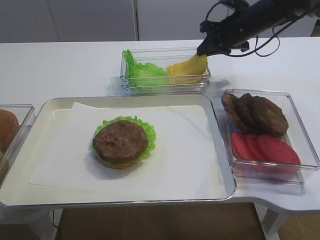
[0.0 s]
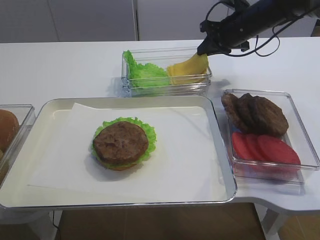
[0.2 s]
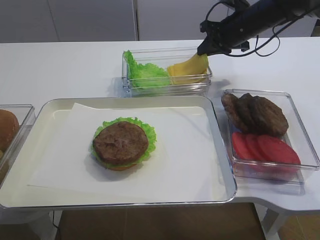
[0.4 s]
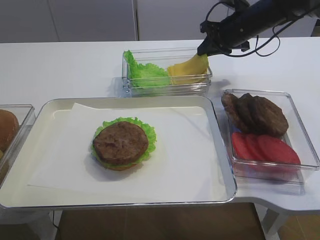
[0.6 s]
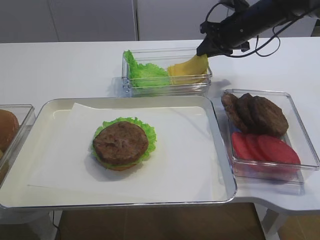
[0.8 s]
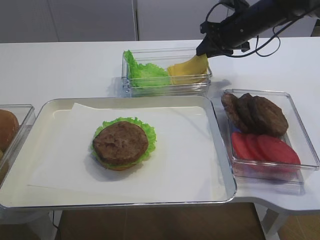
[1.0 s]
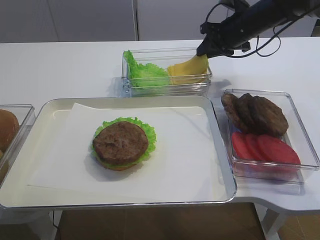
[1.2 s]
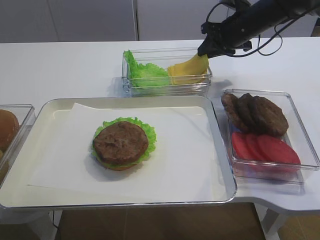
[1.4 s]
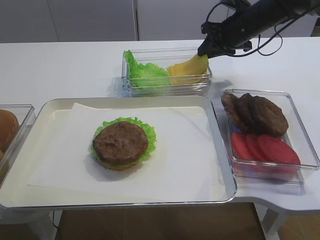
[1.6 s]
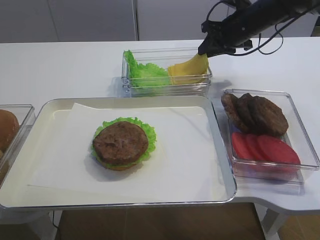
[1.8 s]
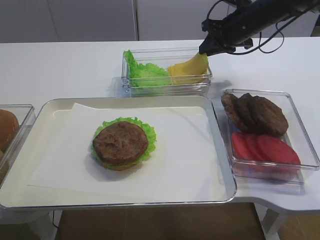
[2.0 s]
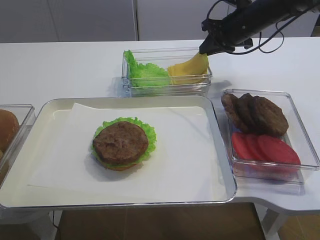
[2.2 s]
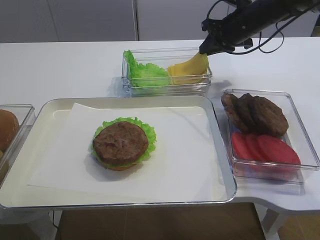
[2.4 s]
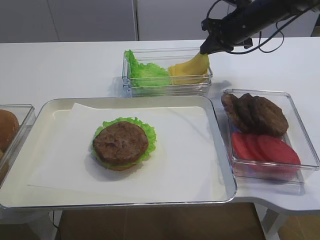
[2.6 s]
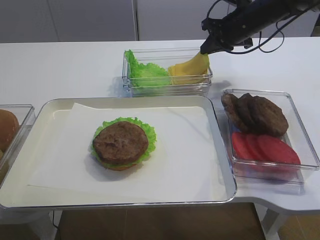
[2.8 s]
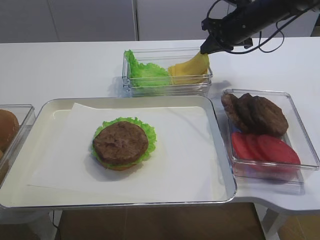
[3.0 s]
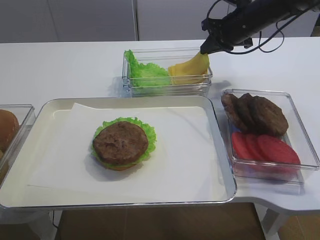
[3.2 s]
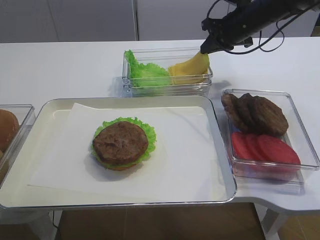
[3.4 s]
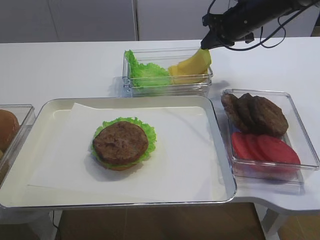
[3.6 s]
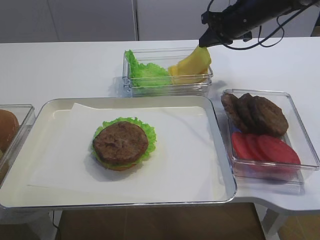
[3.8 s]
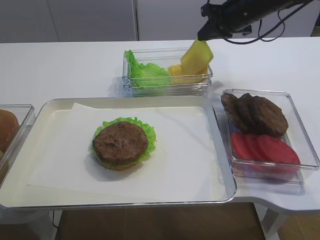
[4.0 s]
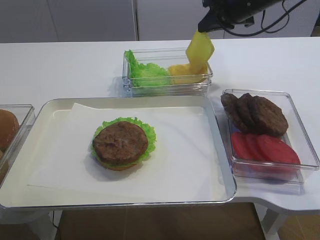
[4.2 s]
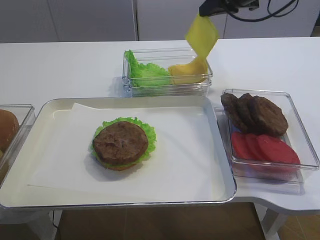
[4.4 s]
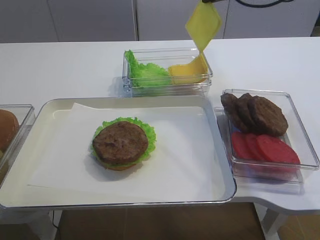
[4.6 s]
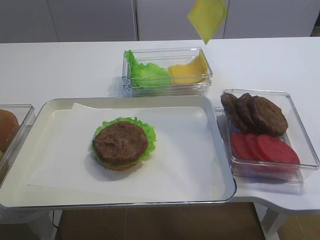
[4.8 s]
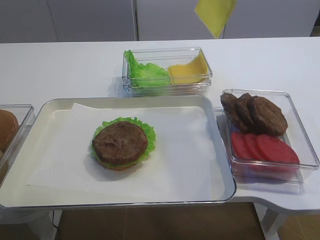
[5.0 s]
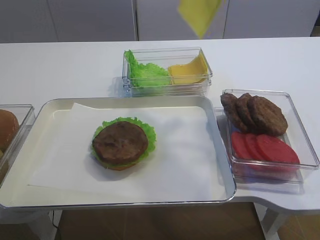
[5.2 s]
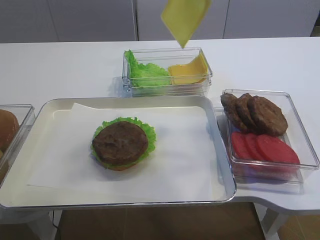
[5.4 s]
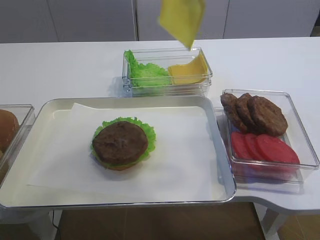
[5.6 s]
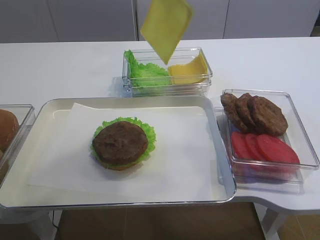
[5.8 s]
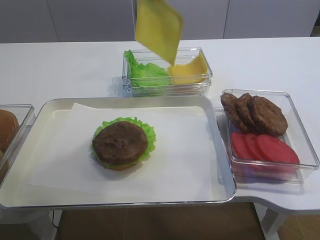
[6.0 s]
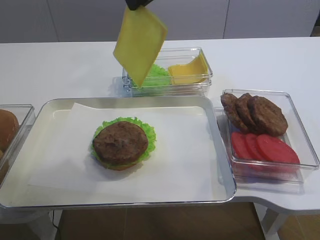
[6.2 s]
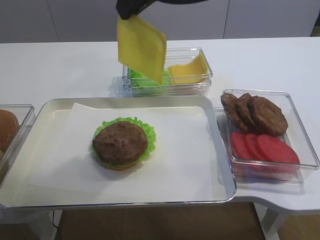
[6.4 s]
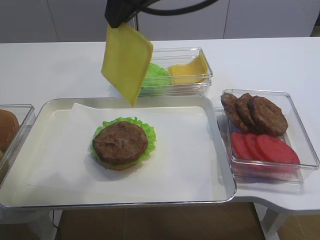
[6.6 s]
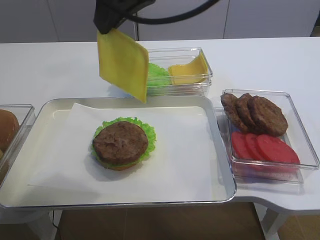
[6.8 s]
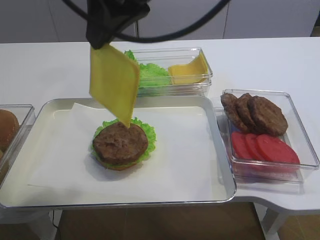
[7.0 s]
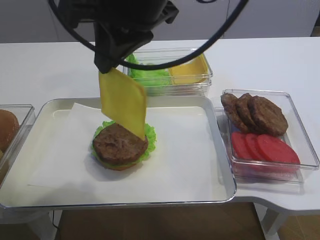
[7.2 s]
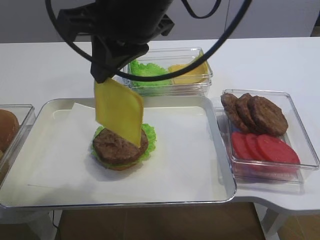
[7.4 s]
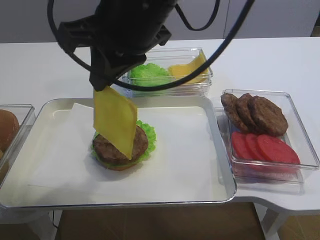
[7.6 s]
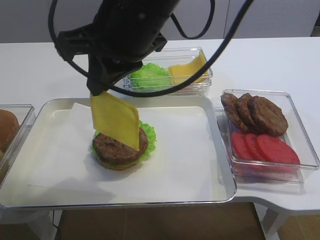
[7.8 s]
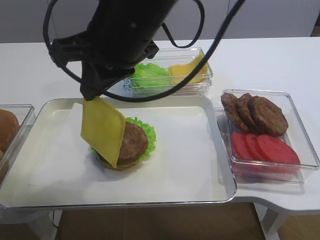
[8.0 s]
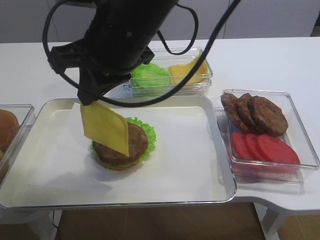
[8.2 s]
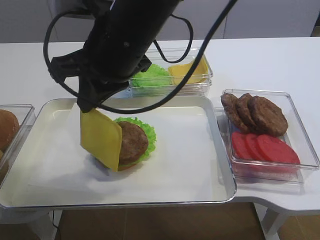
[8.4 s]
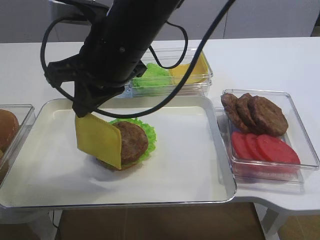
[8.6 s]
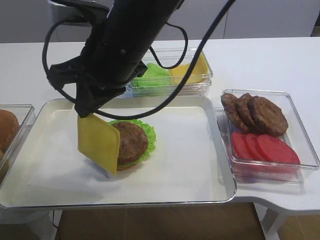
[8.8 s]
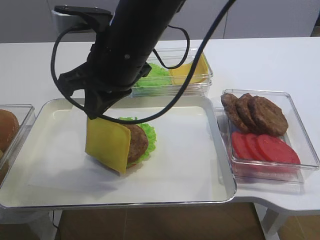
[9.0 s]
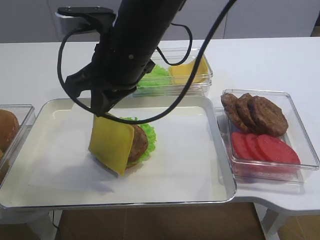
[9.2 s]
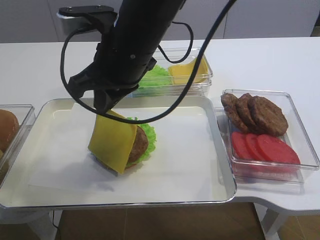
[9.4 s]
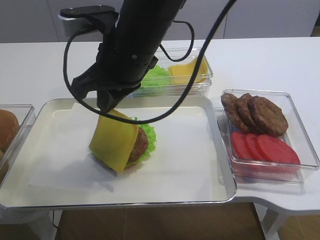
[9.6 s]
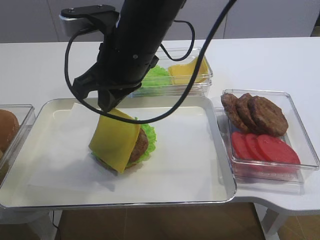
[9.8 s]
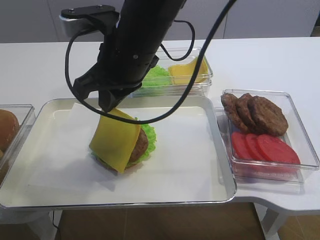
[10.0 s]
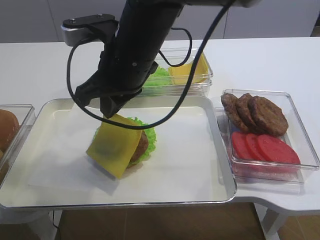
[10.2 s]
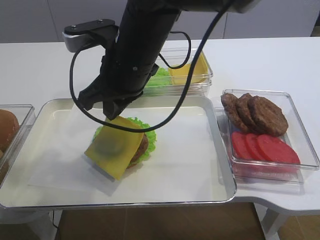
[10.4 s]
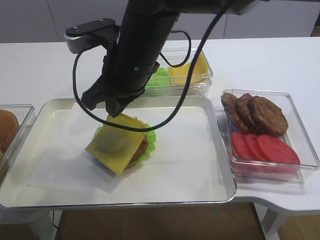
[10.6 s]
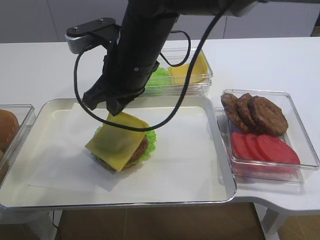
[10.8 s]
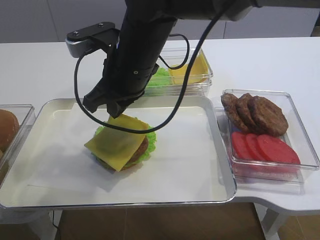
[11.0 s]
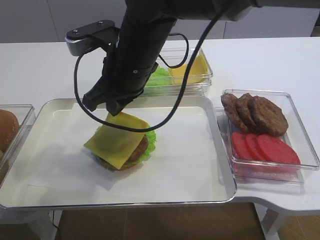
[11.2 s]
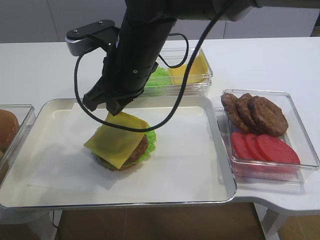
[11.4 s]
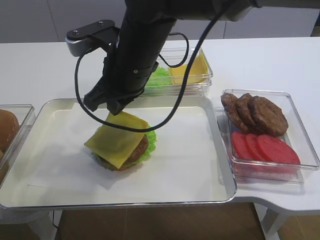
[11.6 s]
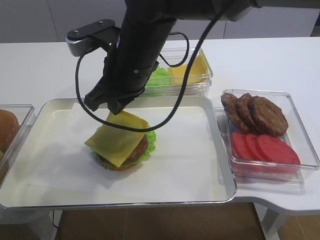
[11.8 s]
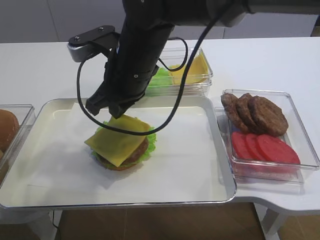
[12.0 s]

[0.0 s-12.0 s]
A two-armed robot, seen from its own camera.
Step, 0.0 to 4.4 s: Pick up the cheese slice with the right gripper.
0.0 to 1.6 s: Neither gripper changes place.
1.6 to 3.0 s: The right gripper closes its fingers.
3.0 to 4.4 s: The right gripper is displaced upward by approximately 10 cm.
4.4 to 6.0 s: The right gripper moves backward, upward and to the left, approximately 20 cm.
6.0 to 7.6 s: The right gripper travels to the left, backward and downward by some 10 cm.
7.6 to 9.0 s: The right gripper is displaced downward by about 5 cm.
9.0 to 12.0 s: The grippers stay close to where they were, moving slightly.

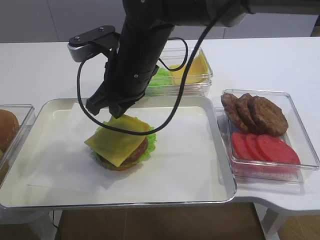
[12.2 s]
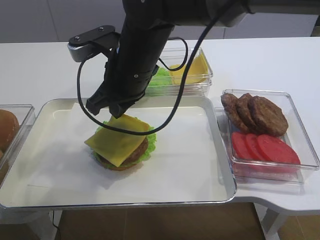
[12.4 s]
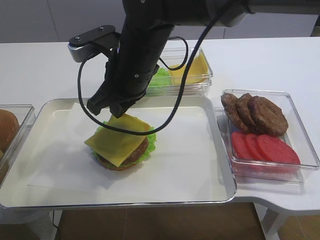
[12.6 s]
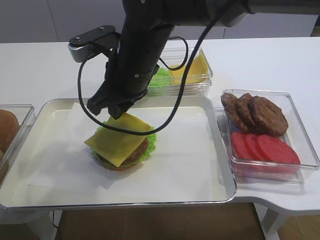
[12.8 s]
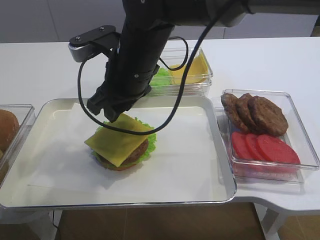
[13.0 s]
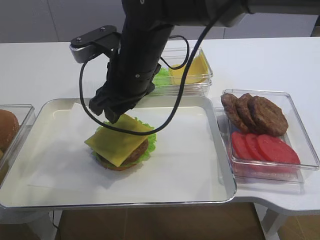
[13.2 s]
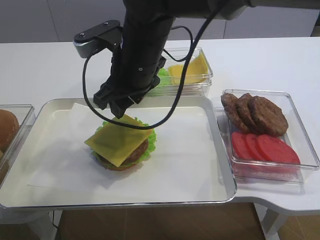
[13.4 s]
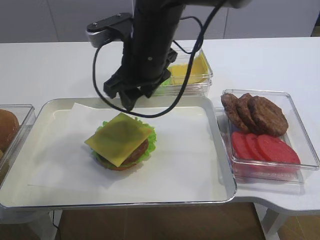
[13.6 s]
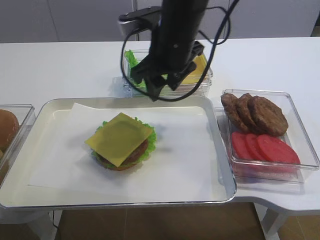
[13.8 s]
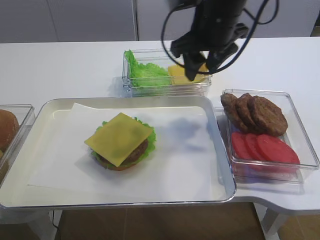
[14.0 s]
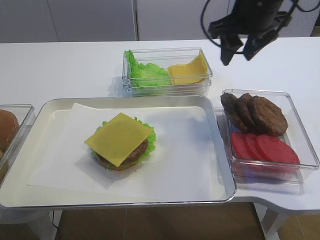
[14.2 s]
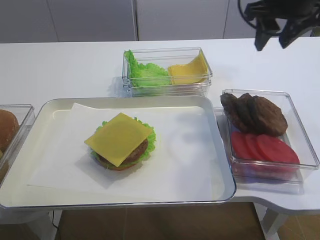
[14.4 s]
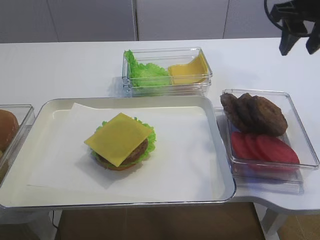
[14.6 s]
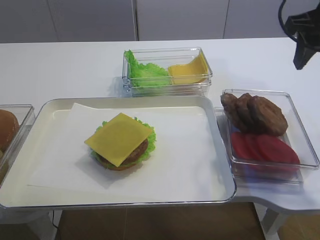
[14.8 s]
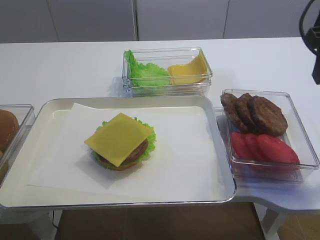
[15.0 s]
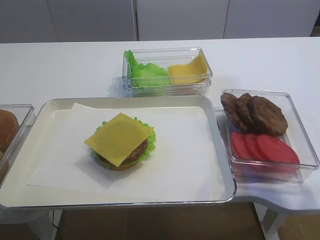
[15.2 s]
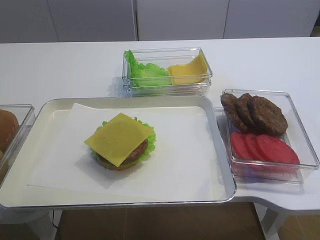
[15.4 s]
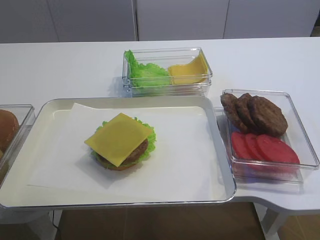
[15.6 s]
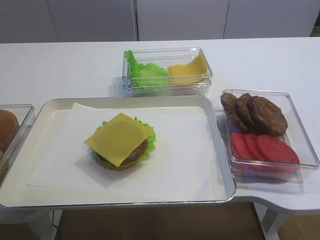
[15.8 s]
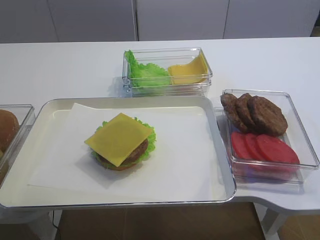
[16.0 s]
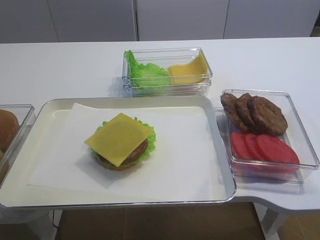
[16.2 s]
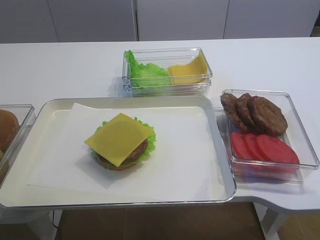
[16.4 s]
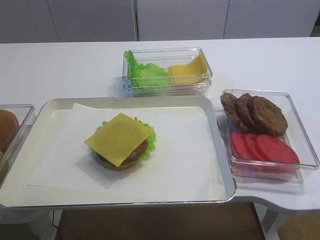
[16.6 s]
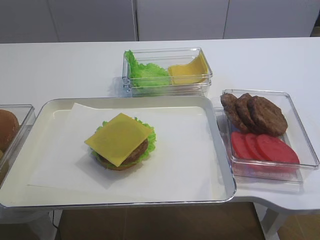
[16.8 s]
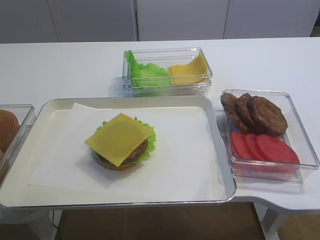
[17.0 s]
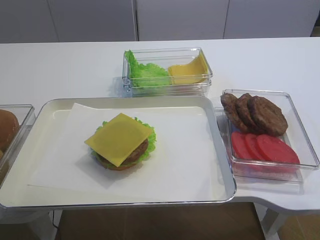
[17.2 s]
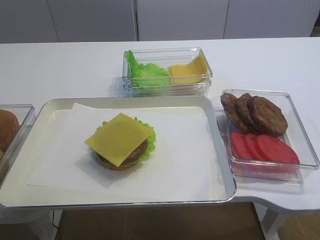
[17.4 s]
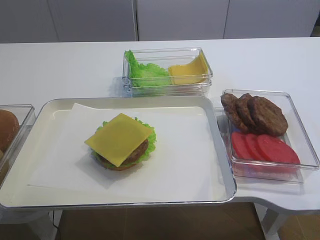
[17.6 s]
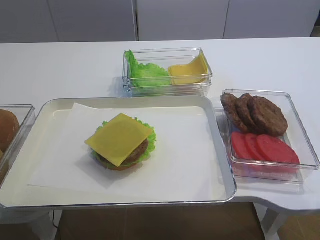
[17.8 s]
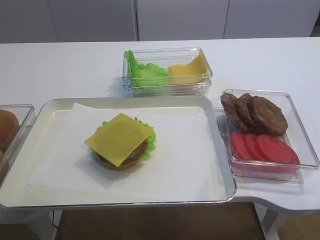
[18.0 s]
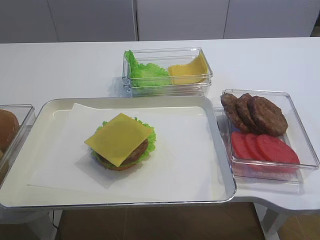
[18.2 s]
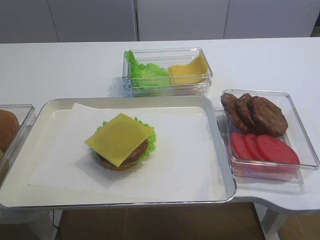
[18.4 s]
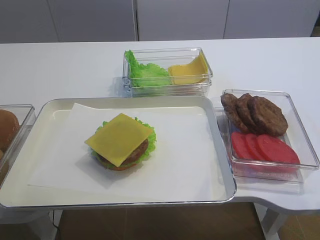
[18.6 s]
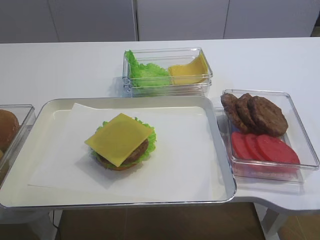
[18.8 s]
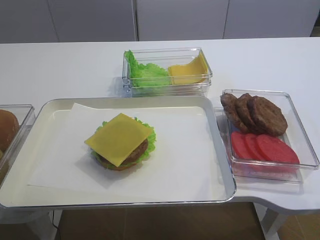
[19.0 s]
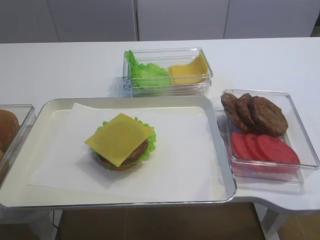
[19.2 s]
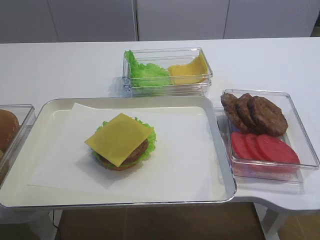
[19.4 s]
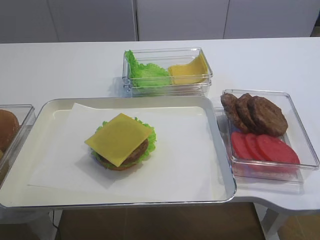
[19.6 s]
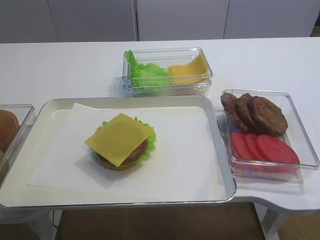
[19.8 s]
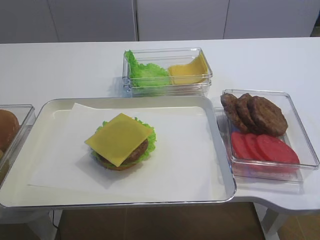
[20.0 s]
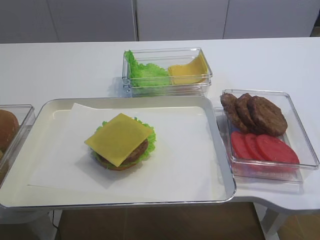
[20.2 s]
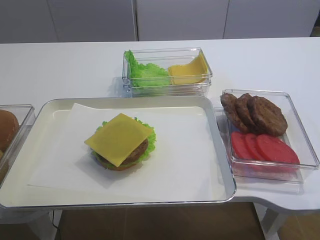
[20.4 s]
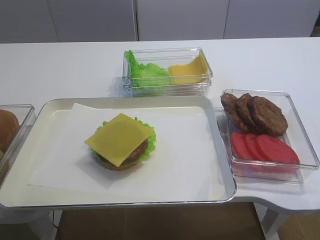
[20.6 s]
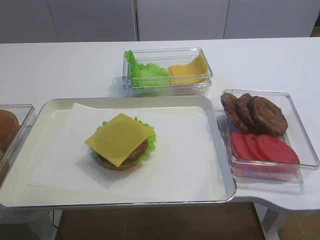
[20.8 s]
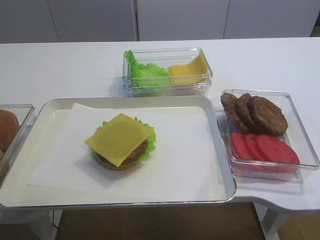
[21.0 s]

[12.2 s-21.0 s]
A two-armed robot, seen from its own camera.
12.2 to 13.6 s: The right gripper opens up.
13.6 to 15.2 s: The right gripper is displaced to the right by some 30 cm.
15.2 to 16.6 s: The right gripper moves backward, approximately 25 cm.
18.0 to 21.0 s: Neither gripper changes place.

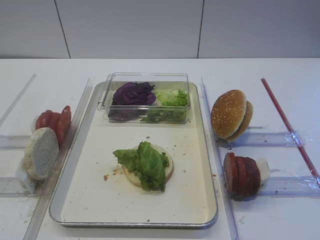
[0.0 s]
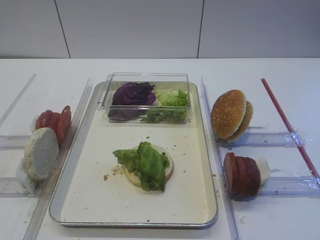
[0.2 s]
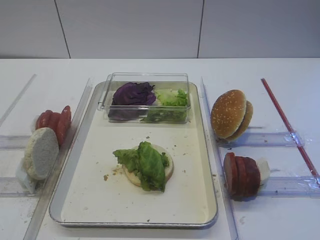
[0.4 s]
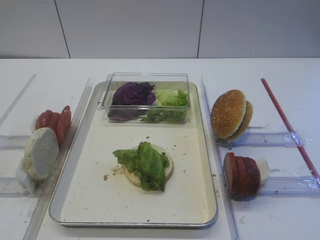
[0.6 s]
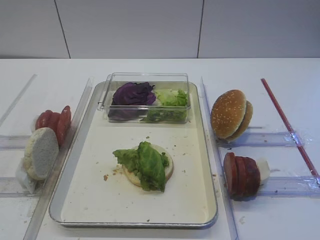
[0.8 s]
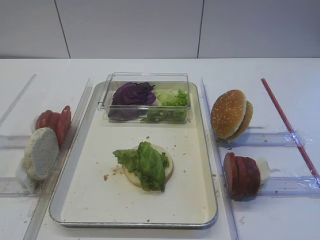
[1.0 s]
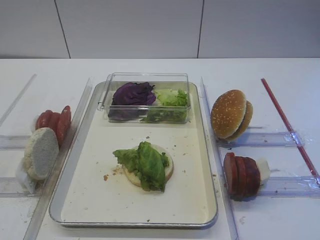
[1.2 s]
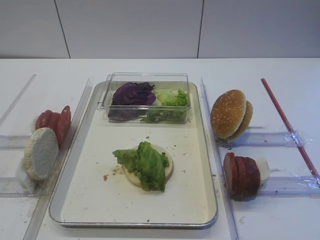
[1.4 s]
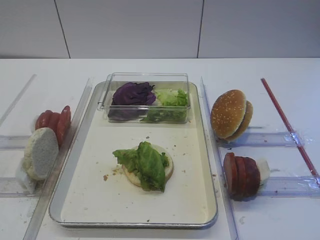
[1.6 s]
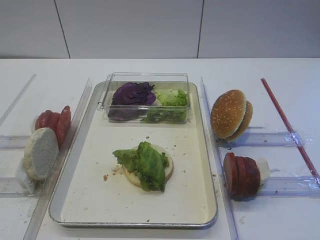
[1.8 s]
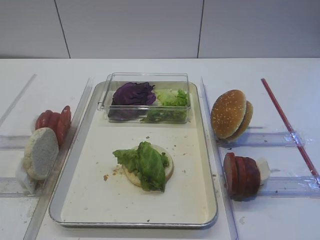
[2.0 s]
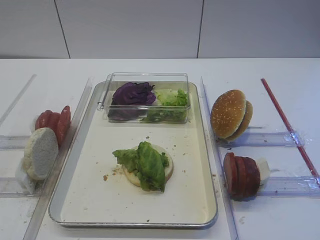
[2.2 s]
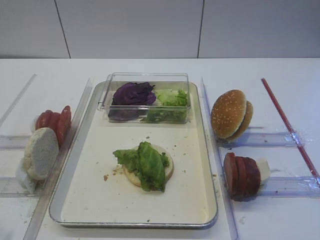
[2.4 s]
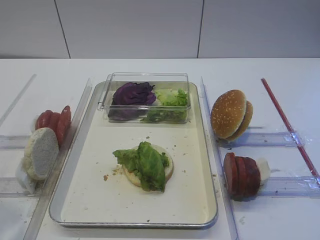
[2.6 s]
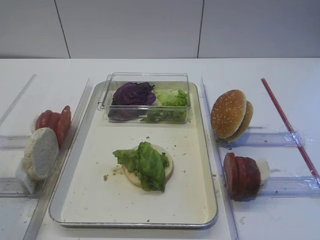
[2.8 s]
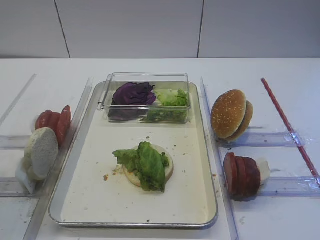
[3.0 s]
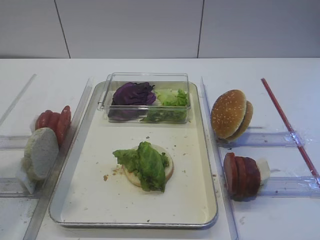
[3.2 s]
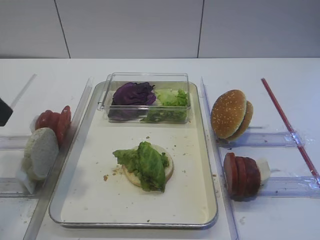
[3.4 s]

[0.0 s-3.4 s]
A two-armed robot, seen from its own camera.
1.6 to 3.4 s: The left gripper shifts approximately 20 cm forward and upward.
